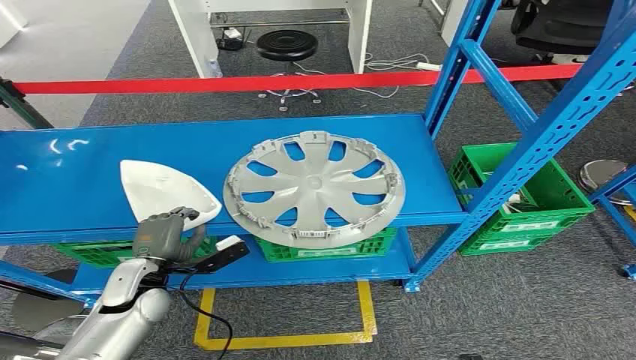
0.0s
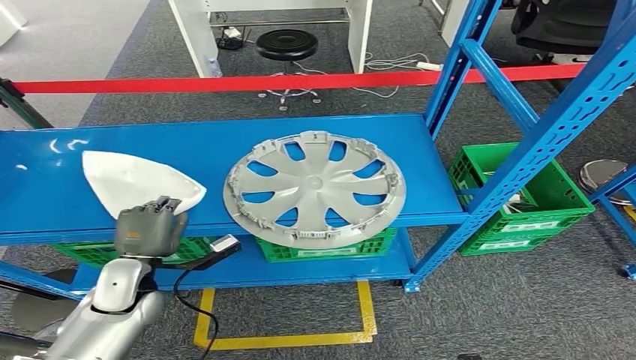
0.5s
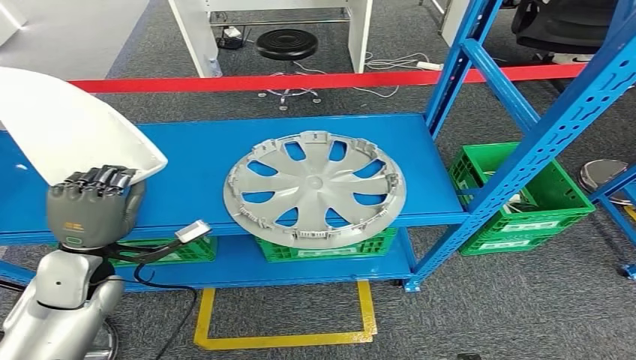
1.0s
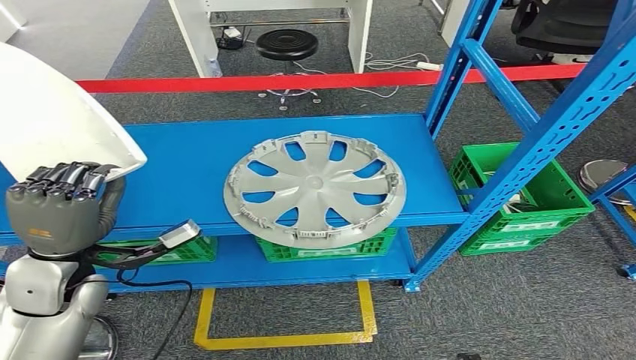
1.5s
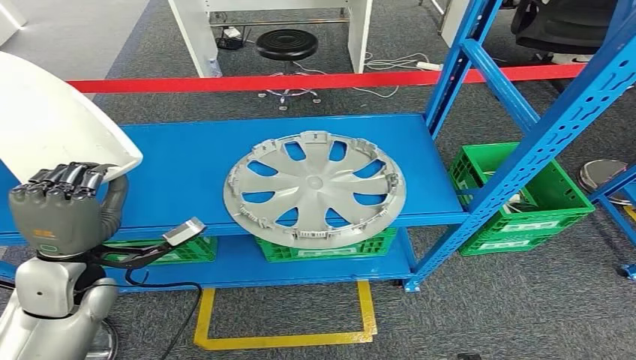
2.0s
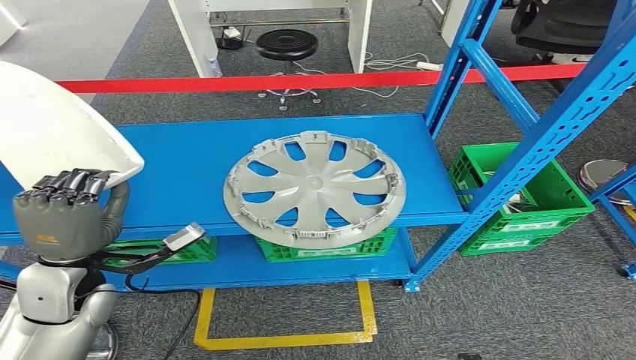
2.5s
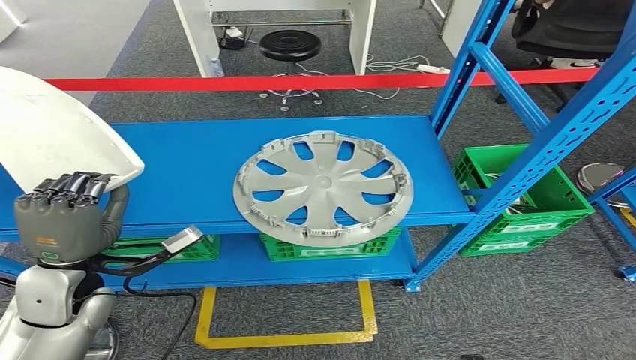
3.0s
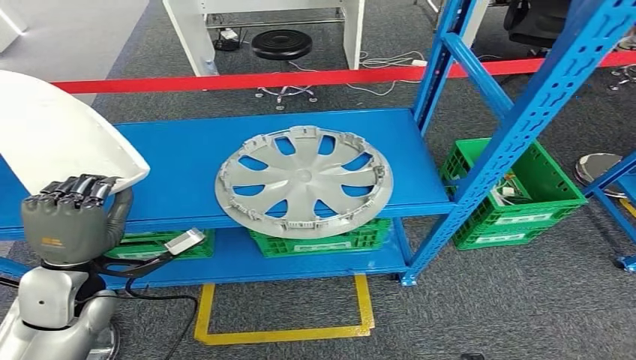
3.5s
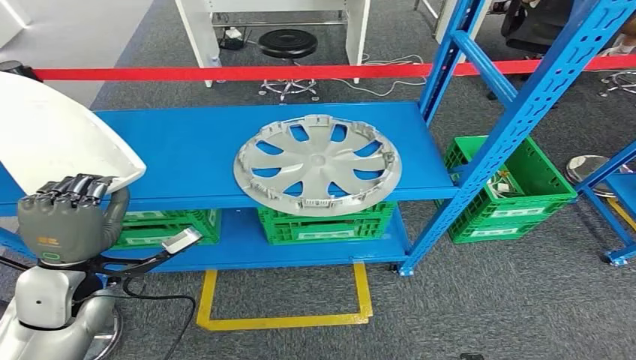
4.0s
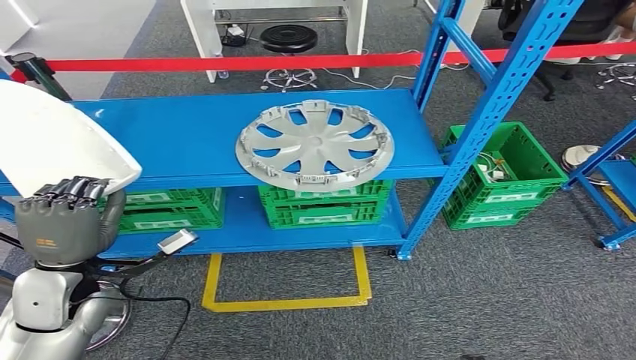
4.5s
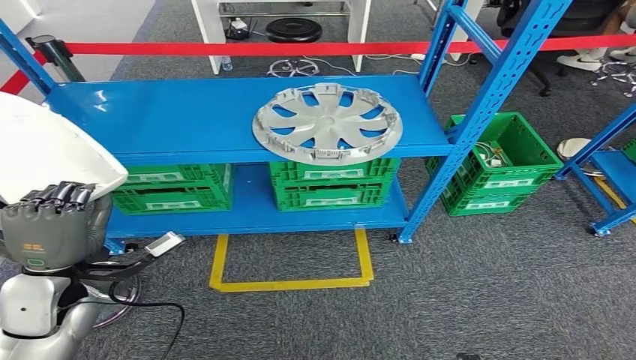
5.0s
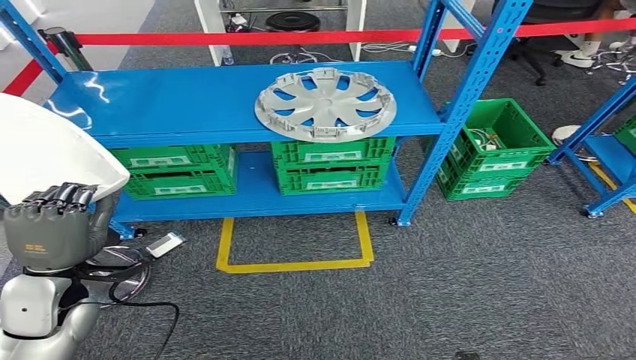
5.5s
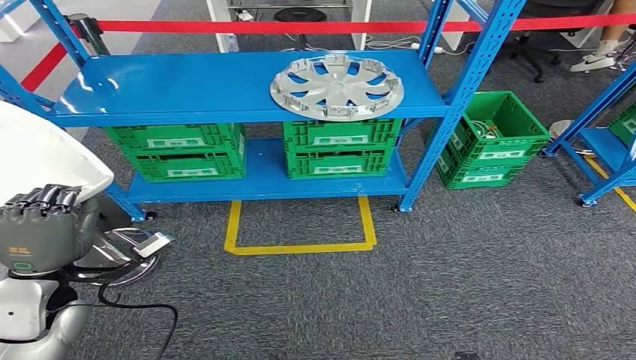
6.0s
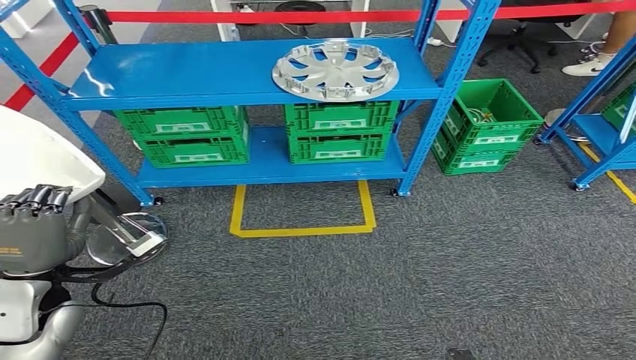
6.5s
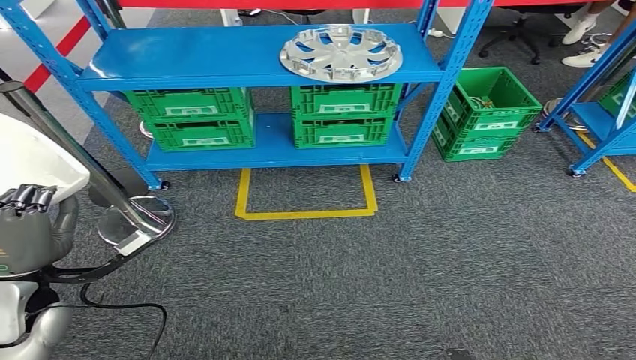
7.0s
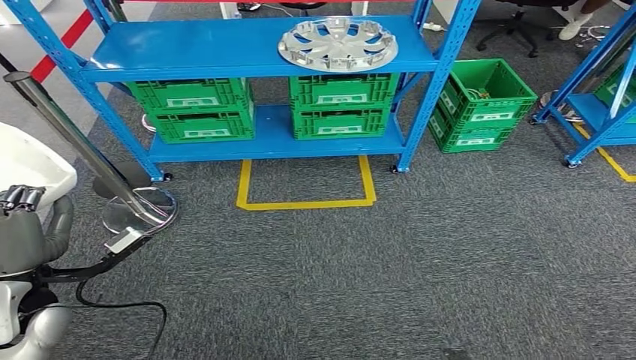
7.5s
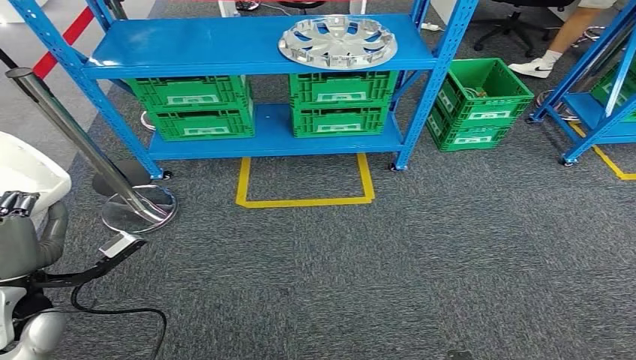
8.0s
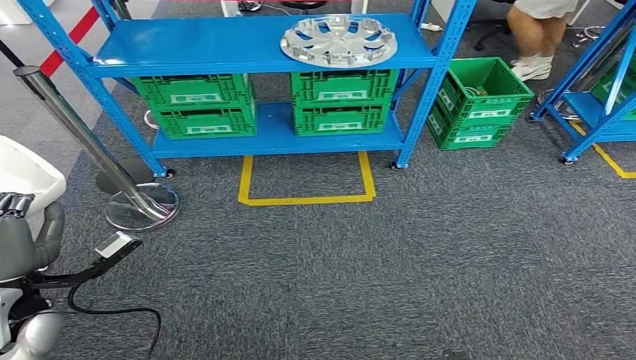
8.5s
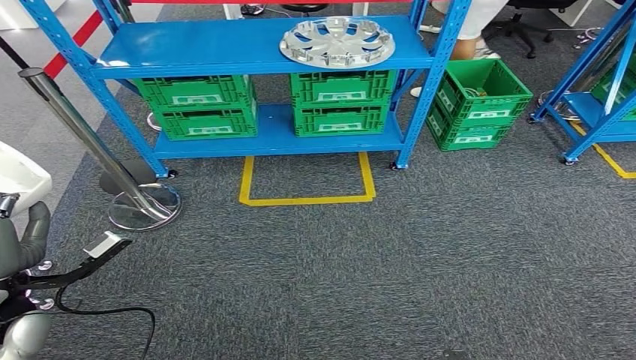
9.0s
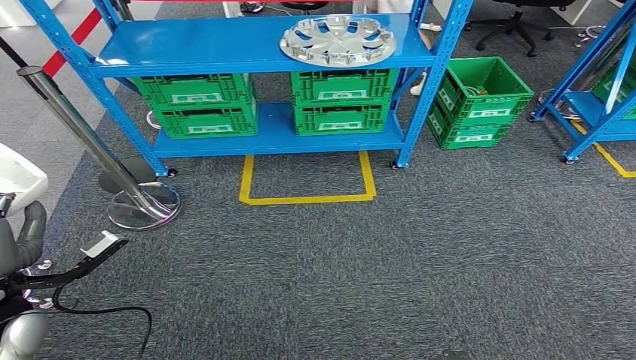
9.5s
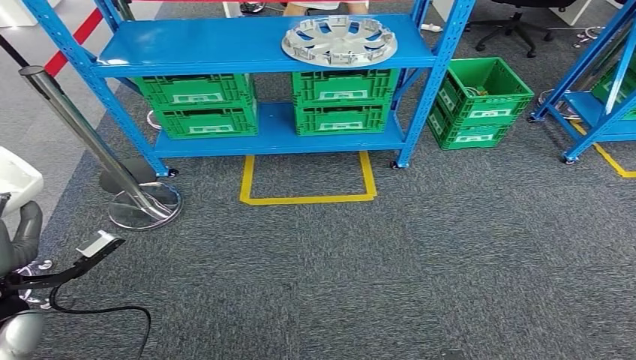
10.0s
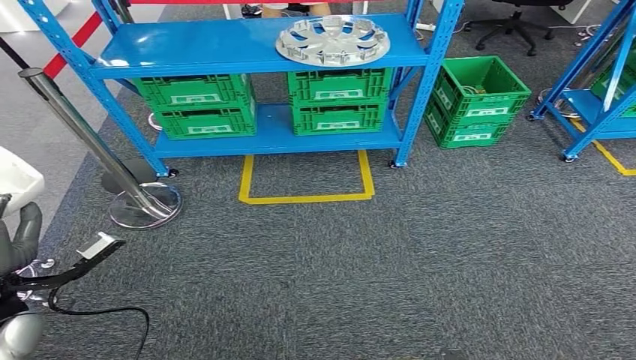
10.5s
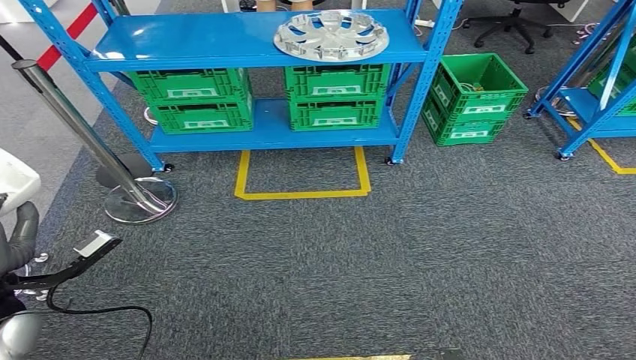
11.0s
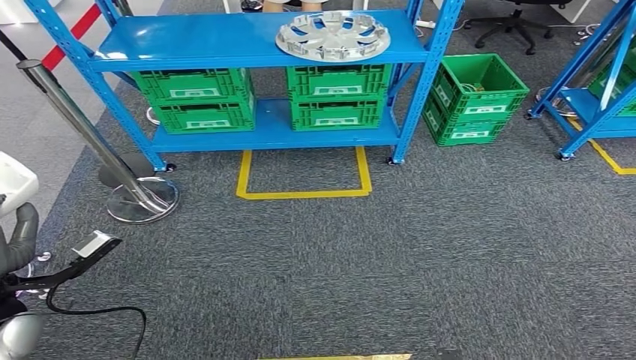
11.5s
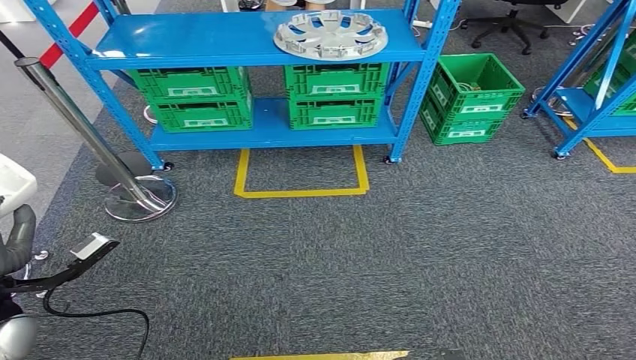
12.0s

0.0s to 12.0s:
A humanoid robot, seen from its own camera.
Step, 0.0s to 3.5s: Pick up the small component from the shelf.
8.0s to 10.0s: The hands stay close to where they were, moving slightly.

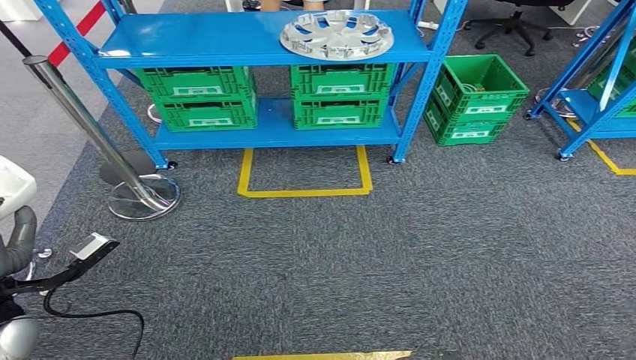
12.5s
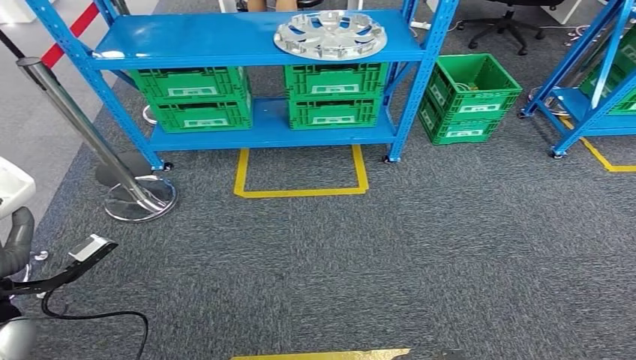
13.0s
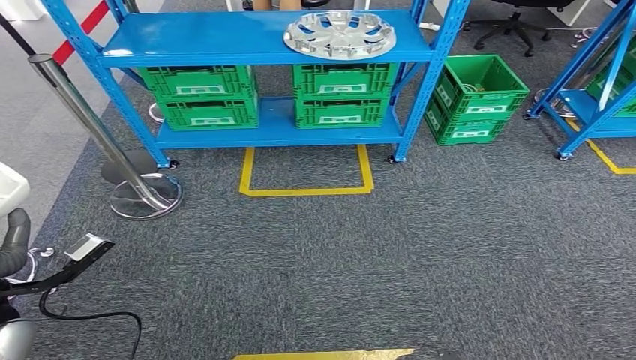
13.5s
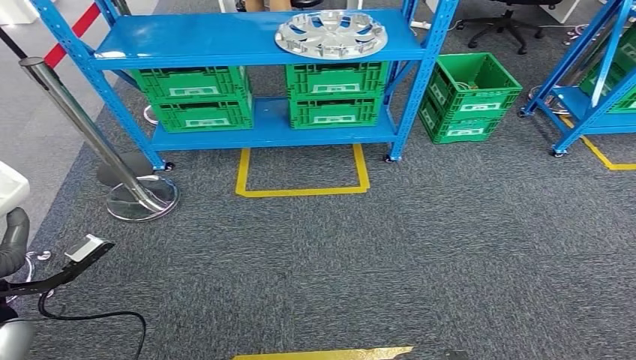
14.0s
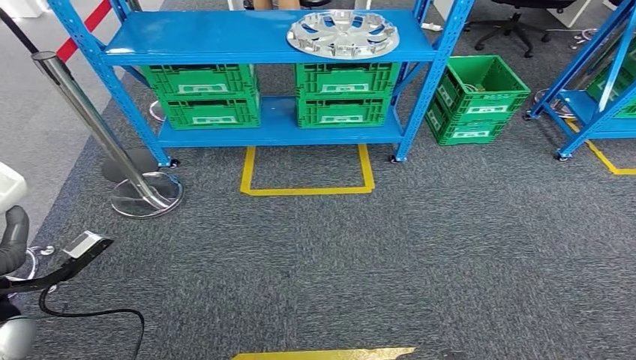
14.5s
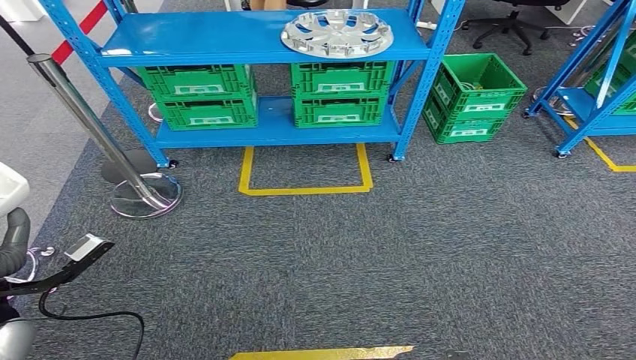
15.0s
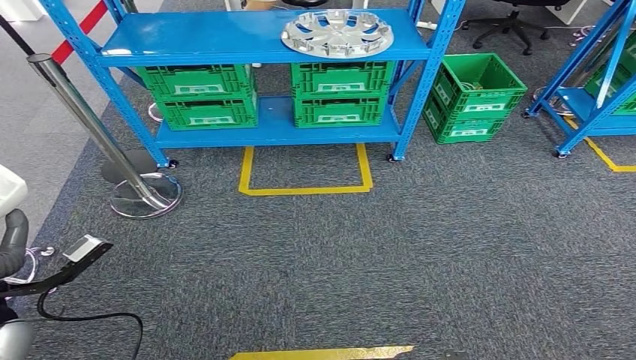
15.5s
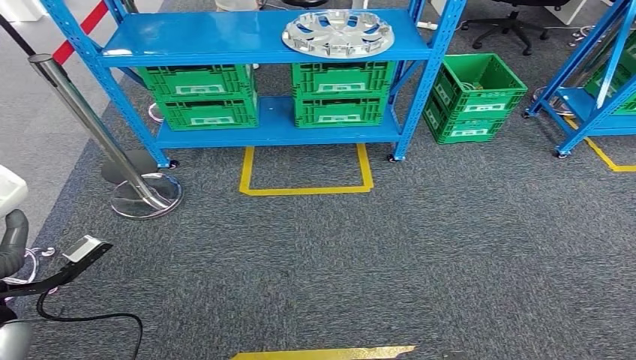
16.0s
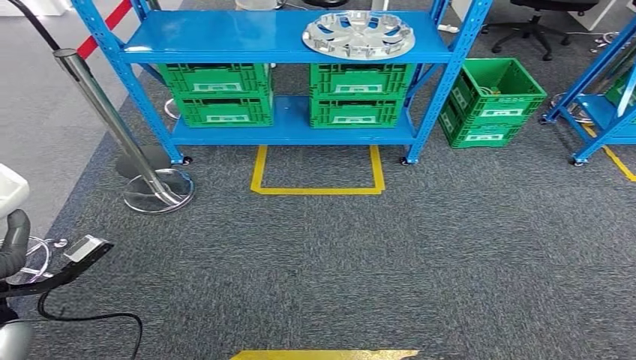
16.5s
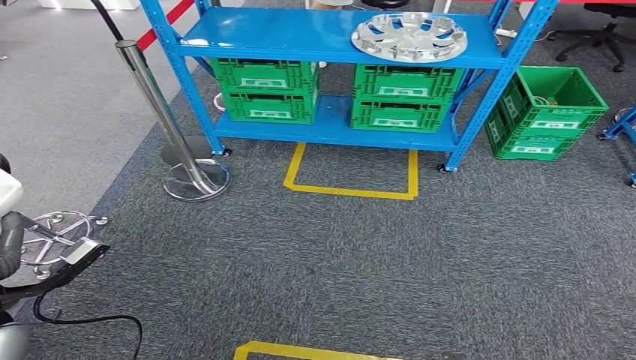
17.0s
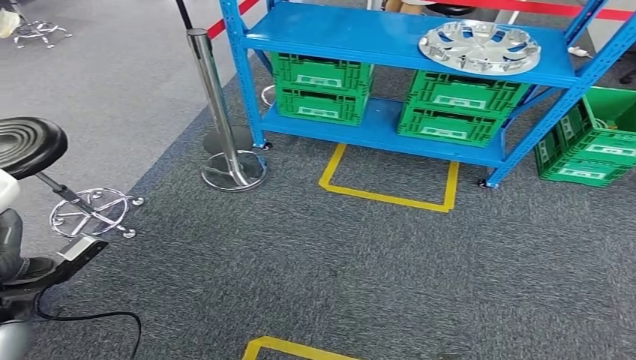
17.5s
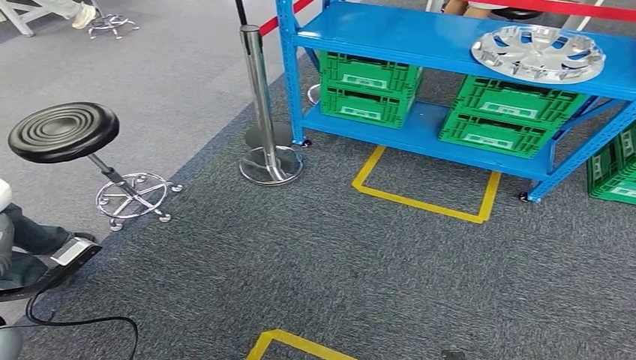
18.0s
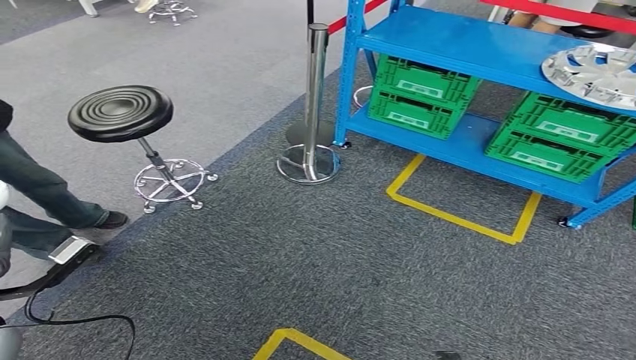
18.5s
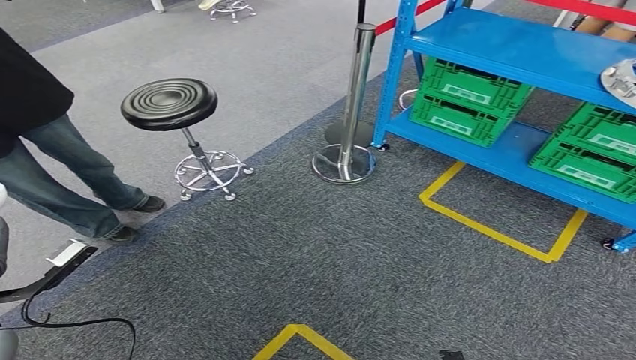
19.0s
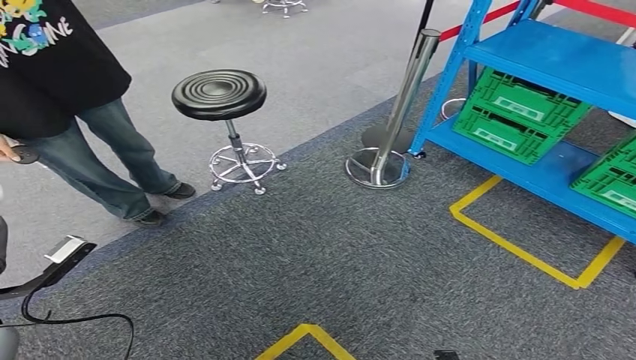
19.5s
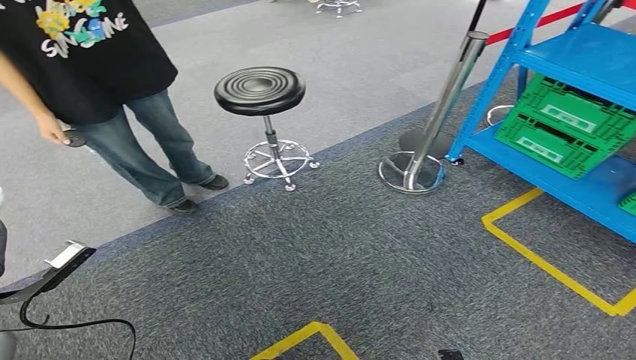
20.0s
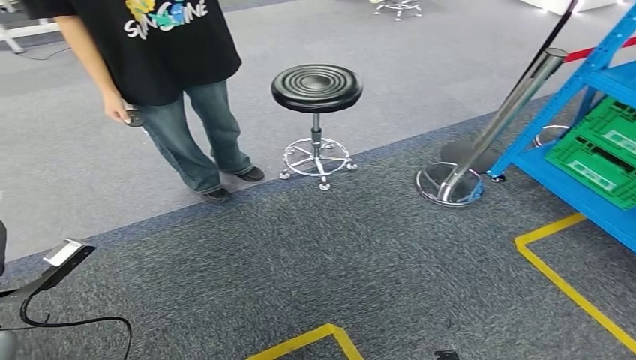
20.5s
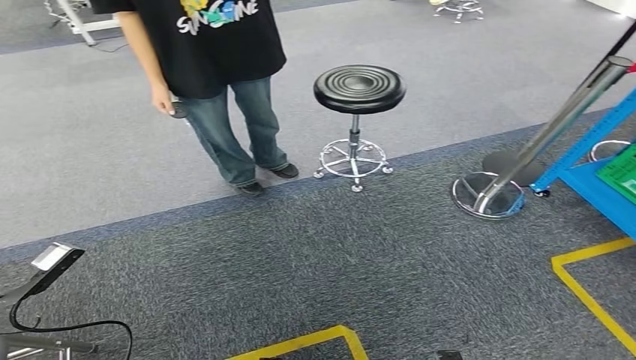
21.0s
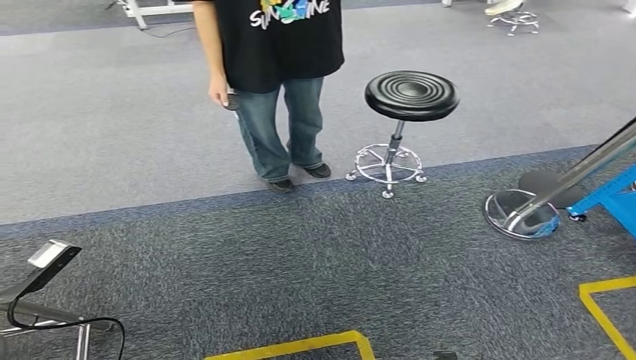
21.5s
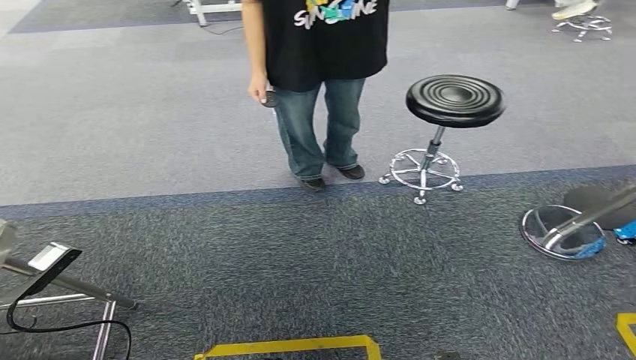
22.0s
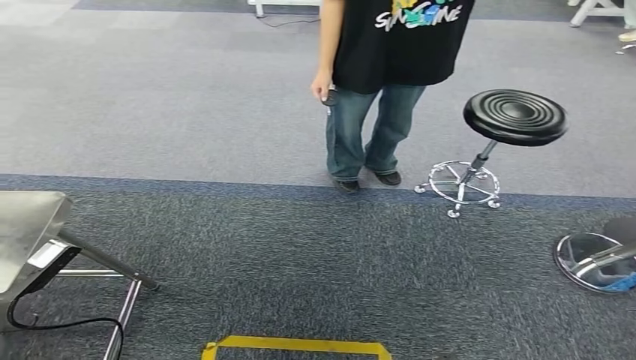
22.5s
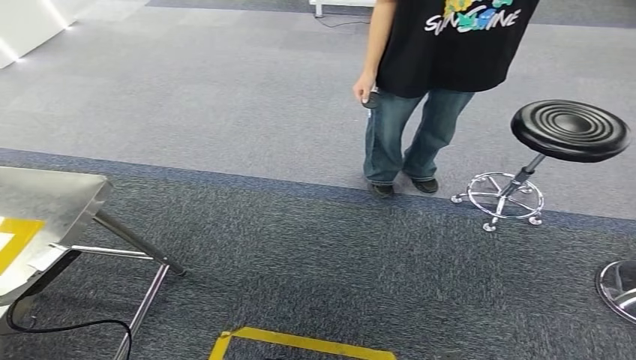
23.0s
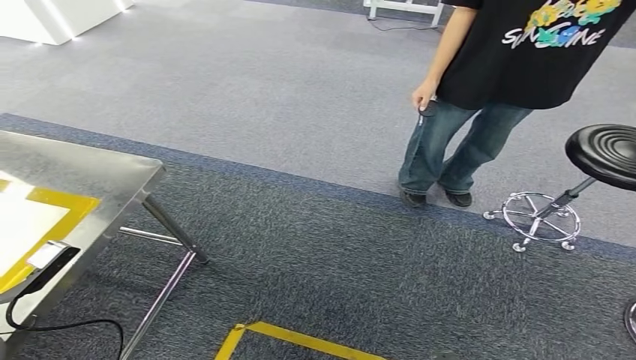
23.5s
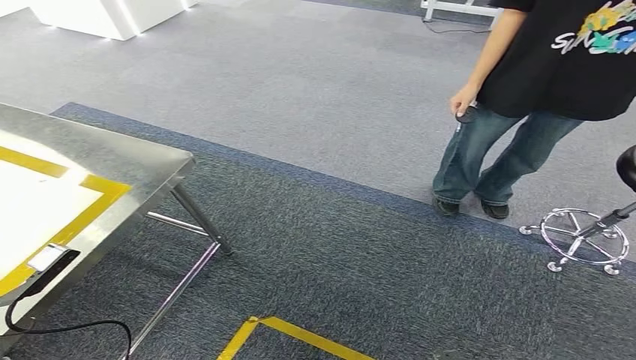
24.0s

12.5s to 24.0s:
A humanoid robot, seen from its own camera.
12.5s to 14.5s: Neither hand changes place.
